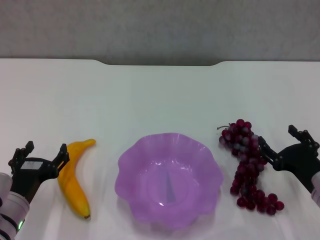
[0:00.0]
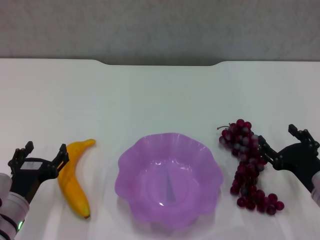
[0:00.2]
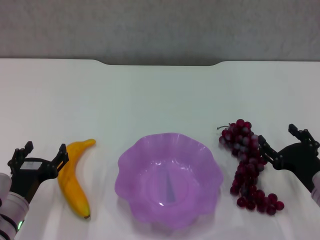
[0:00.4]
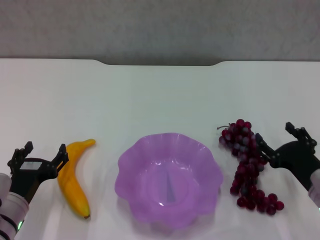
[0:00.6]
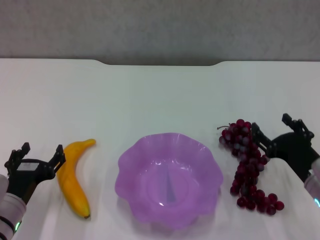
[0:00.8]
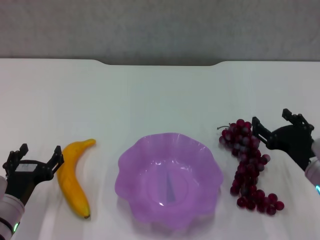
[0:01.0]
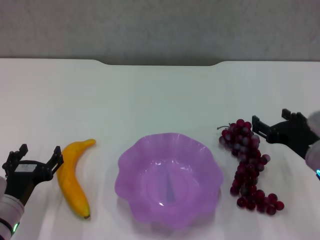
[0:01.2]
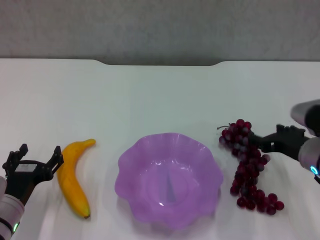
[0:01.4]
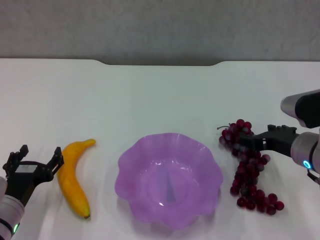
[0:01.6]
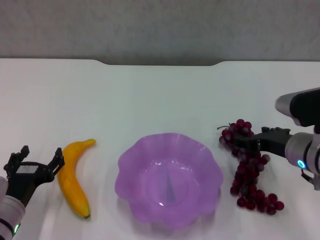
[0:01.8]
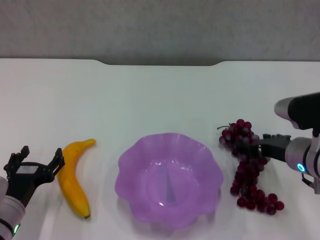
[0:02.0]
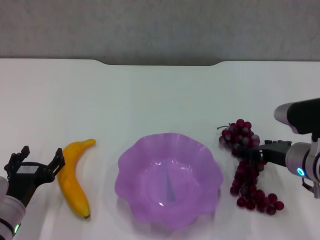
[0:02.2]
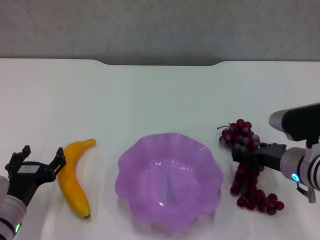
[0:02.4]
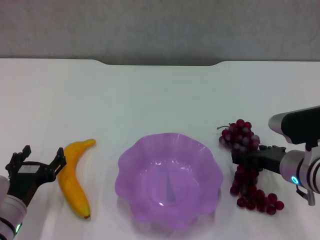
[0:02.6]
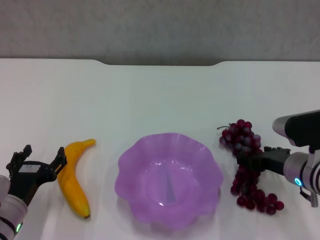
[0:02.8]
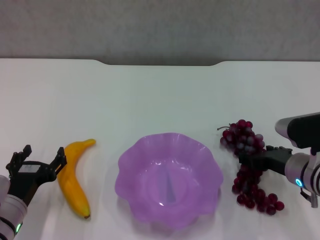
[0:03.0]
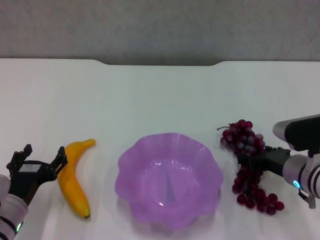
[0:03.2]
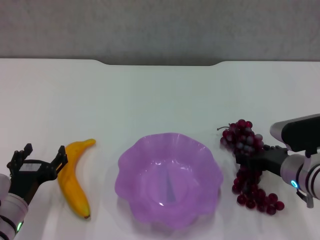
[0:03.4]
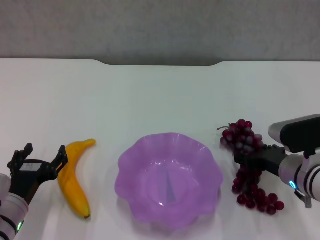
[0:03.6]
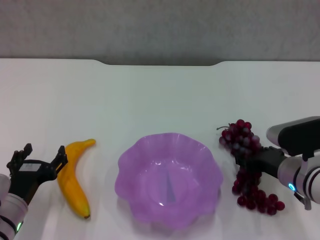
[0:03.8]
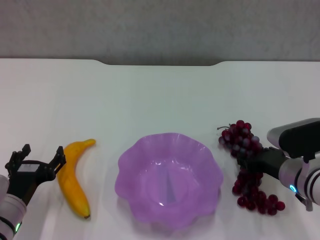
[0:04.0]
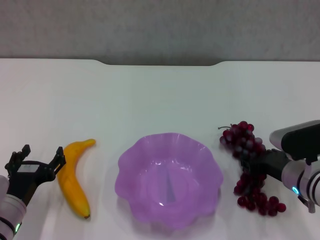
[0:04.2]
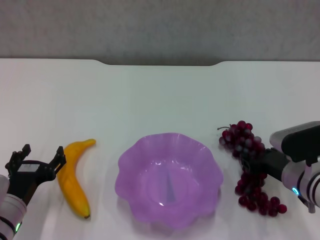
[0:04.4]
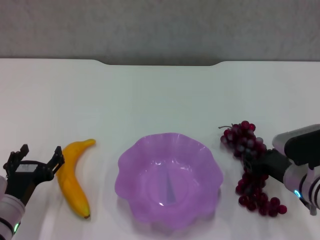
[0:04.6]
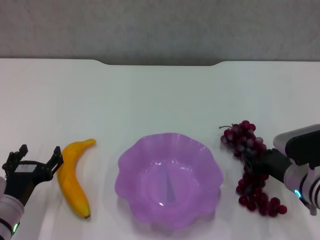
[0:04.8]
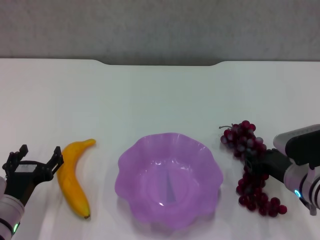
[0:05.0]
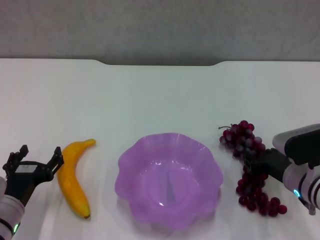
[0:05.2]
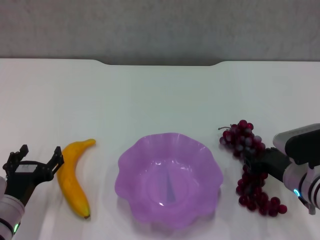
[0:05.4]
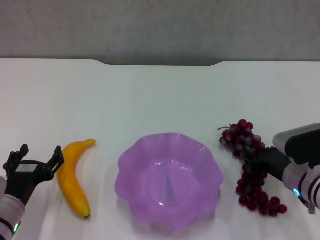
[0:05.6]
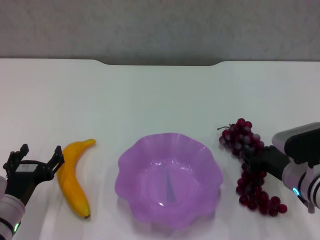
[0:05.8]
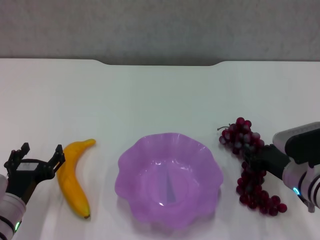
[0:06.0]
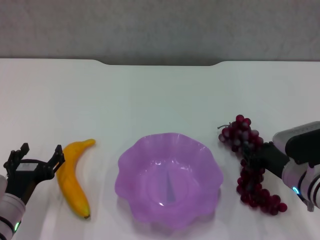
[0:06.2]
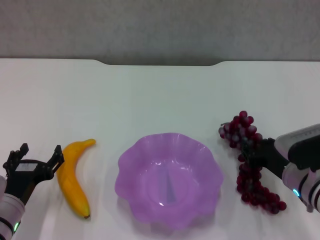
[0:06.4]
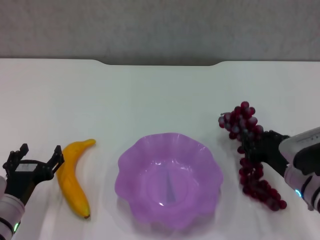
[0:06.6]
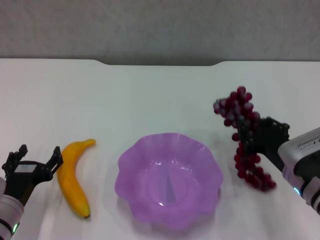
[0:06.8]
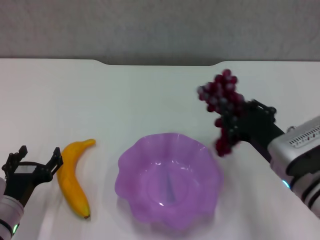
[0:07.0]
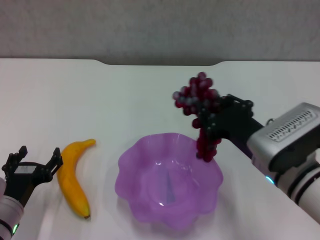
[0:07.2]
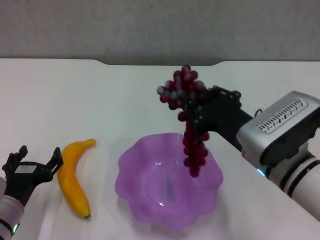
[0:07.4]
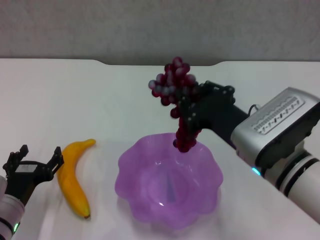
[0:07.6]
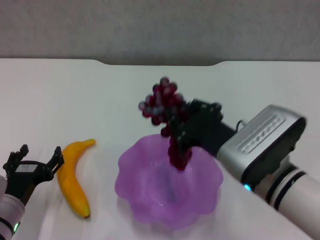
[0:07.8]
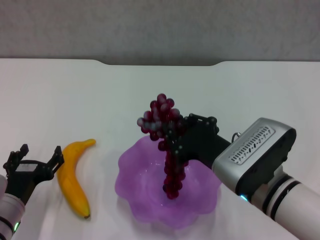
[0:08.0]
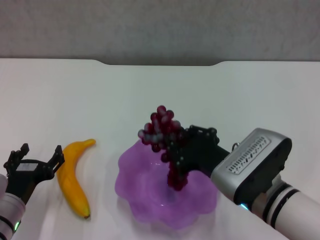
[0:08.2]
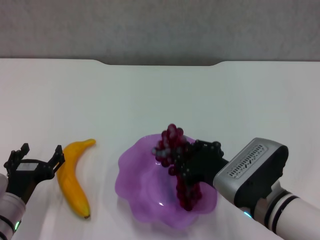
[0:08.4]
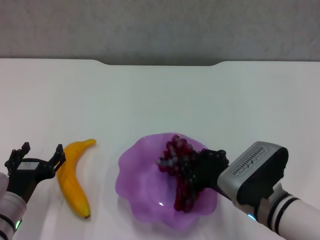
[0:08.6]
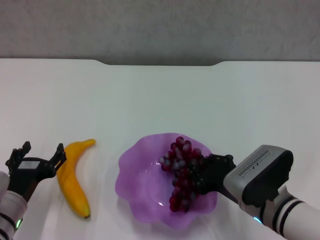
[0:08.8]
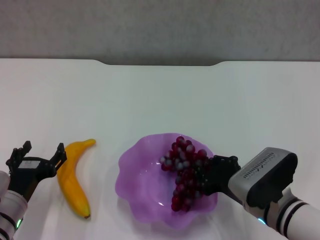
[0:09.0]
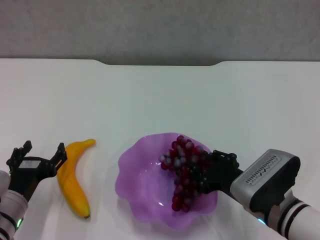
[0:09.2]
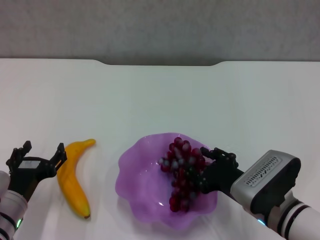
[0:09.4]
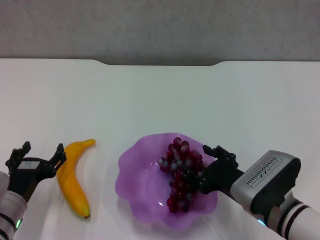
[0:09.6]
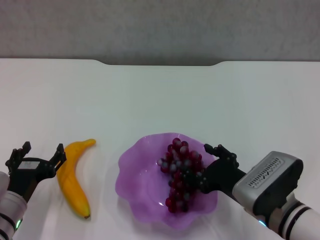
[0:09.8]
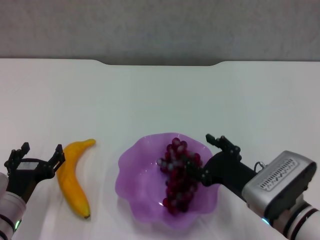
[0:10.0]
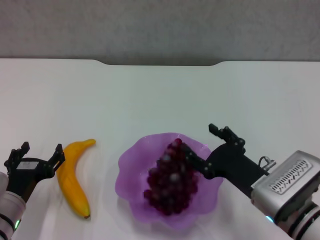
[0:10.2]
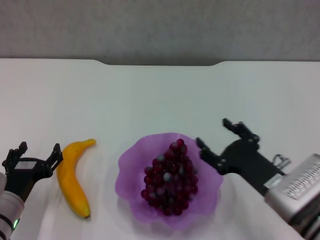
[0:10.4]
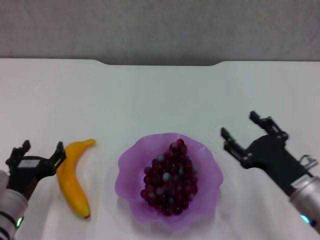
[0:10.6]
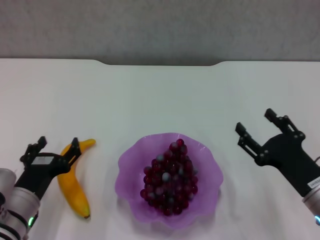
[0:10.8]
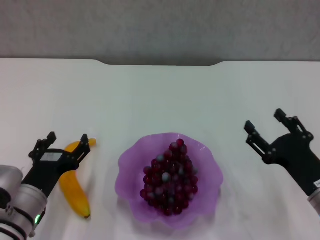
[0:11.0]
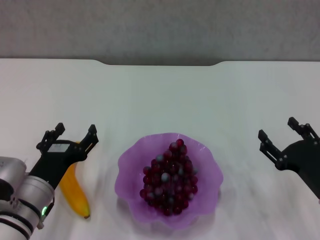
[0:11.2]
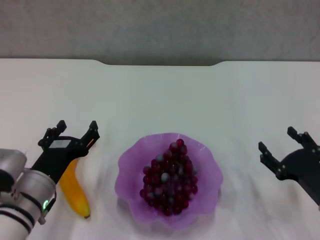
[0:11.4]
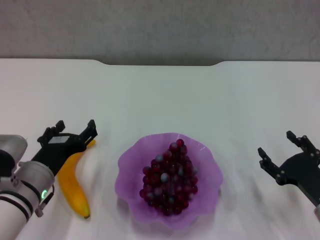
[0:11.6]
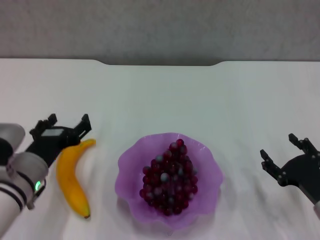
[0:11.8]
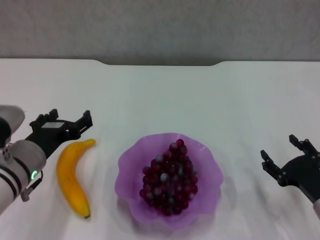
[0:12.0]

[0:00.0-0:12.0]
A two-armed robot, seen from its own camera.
Step, 0:00.0 to 0:04.0: Grasp the grape with right gripper.
Step, 0:04.2 to 0:10.2: Place the grape in the purple plate with right gripper.
0:00.0 to 0:01.6: The right gripper moves upward and forward, about 10 cm.
0:01.6 to 0:03.0: The right gripper is displaced downward by about 5 cm.
0:03.0 to 0:04.4: The right gripper closes its fingers.
0:04.4 to 0:06.0: Both grippers stay about where they are.
0:06.0 to 0:07.6: The right gripper heads upward and to the left, covering some 15 cm.
0:07.6 to 0:09.0: The right gripper moves downward, some 10 cm.
0:09.0 to 0:10.4: The right gripper opens.
0:10.4 to 0:12.0: The right gripper moves to the right, approximately 10 cm. The left gripper heads upward, covering roughly 10 cm.

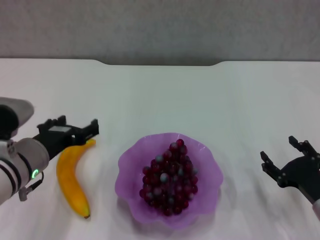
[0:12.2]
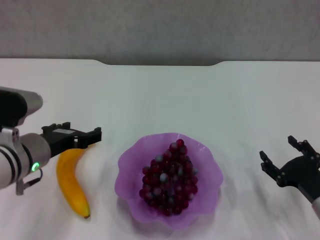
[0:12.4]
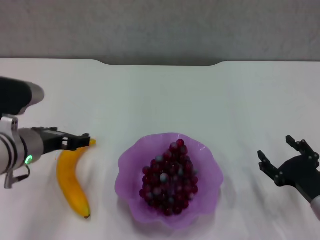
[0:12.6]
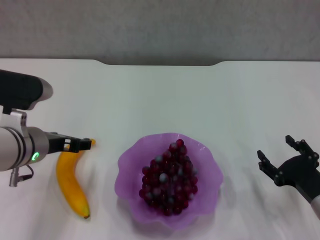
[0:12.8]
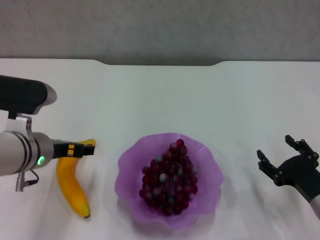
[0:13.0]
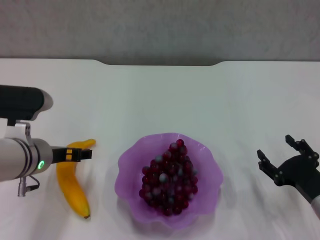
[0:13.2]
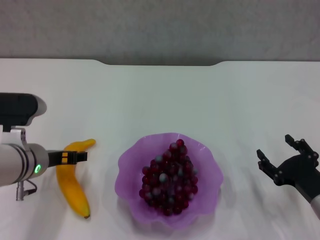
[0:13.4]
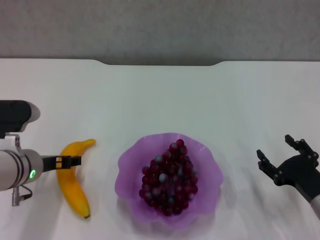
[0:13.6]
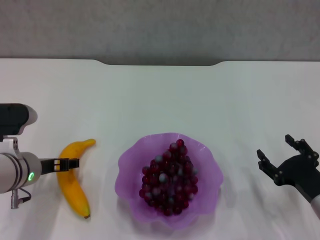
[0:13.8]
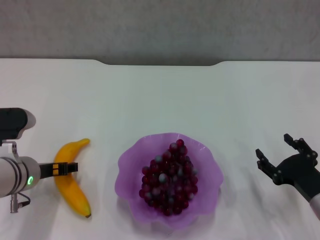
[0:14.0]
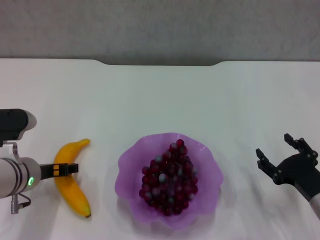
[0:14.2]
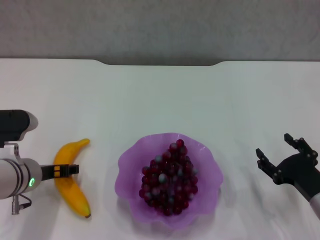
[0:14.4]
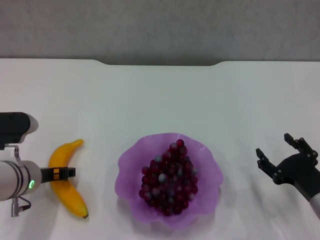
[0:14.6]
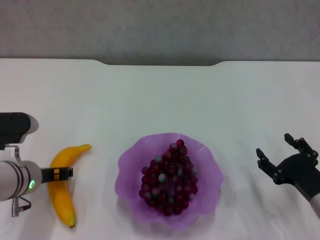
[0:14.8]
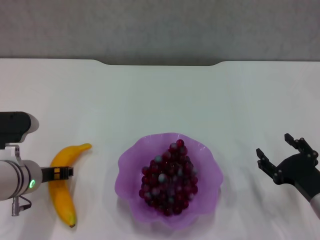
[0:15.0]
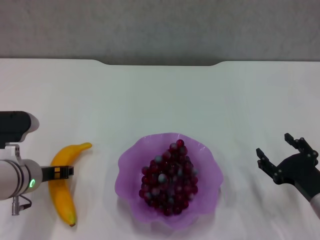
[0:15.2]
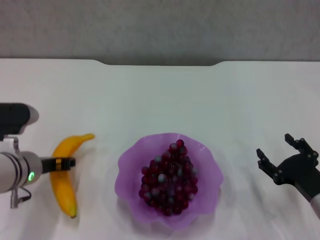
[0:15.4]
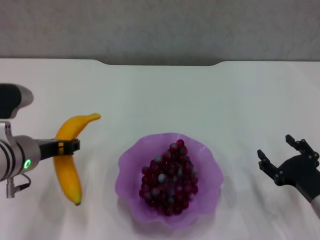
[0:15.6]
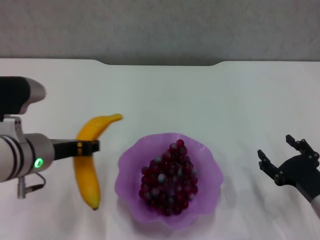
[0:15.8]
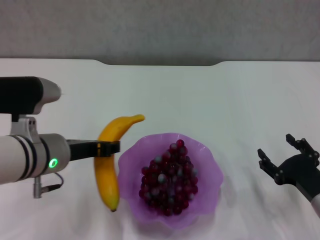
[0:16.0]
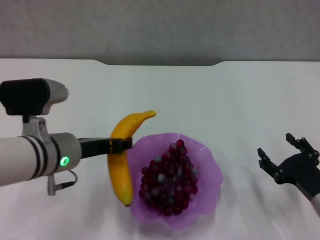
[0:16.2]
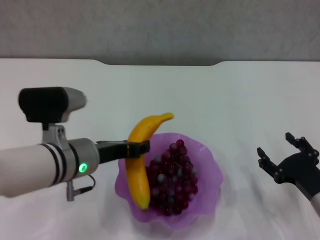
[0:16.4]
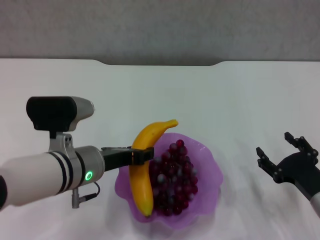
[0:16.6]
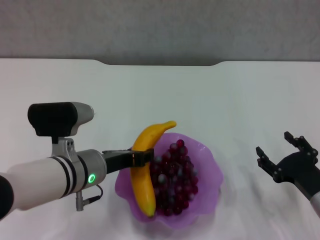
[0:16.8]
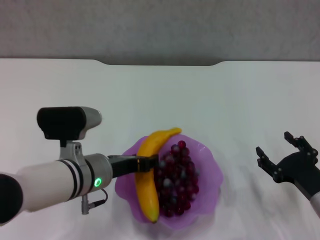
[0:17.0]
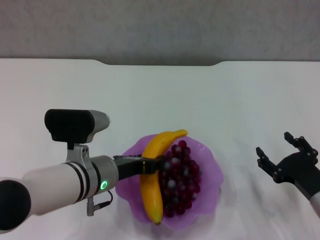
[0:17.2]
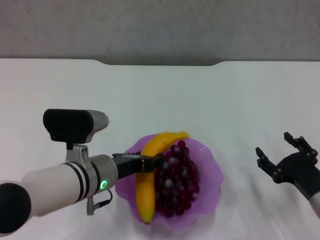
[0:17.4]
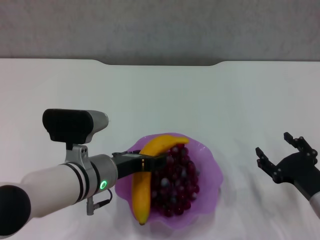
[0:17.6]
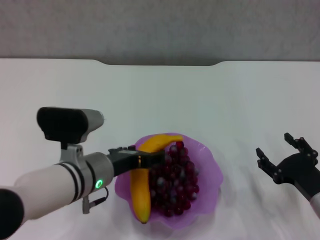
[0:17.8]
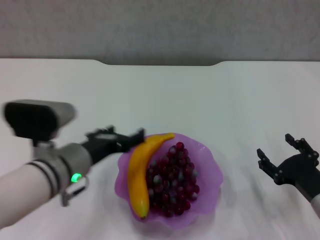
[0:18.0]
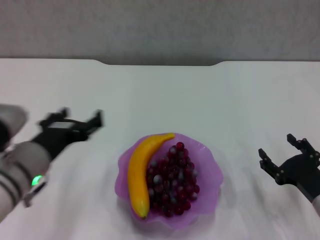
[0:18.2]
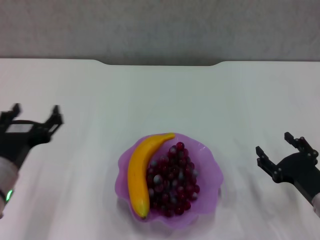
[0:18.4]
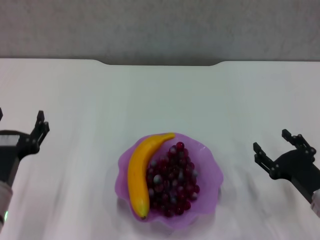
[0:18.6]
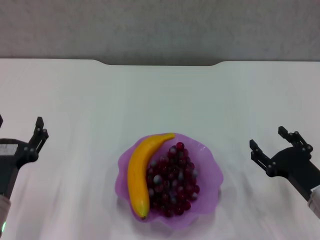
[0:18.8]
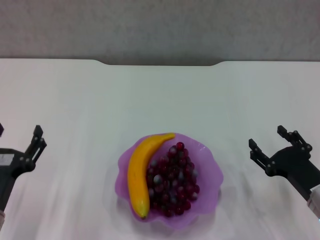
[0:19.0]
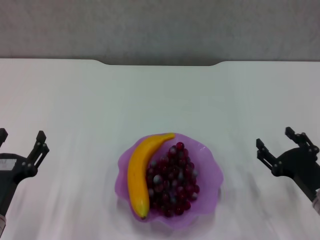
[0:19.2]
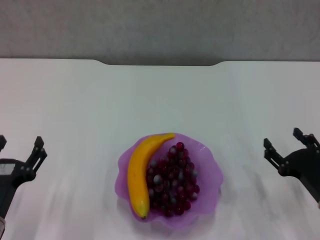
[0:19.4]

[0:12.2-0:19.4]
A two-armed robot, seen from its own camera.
Step, 0:12.2 to 0:15.0: Grasp the banana with left gripper.
Step, 0:15.2 to 0:17.8: Place the banana in the purple plate with left gripper.
0:13.6 to 0:15.0: The left gripper closes its fingers.
0:15.0 to 0:16.6: The left gripper is displaced to the right by approximately 10 cm.
0:16.6 to 0:18.0: The left gripper opens up.
0:18.0 to 0:19.4: The left gripper is displaced to the left, backward and downward by roughly 15 cm.
